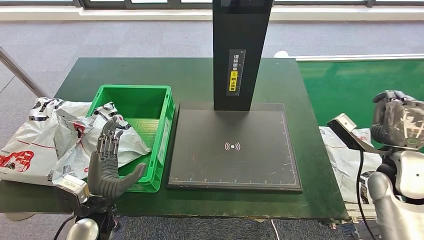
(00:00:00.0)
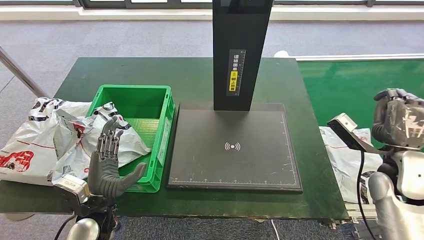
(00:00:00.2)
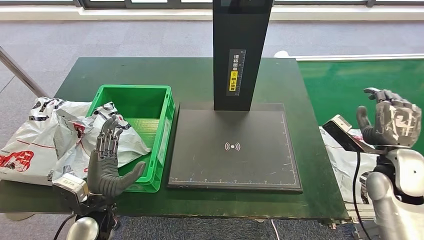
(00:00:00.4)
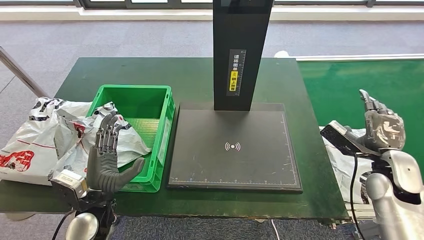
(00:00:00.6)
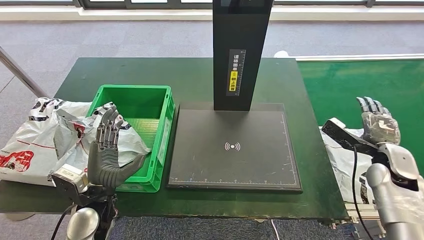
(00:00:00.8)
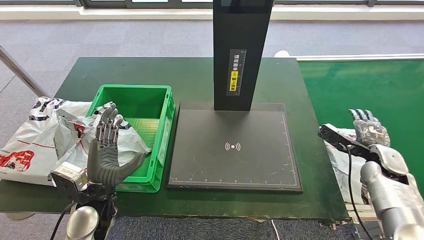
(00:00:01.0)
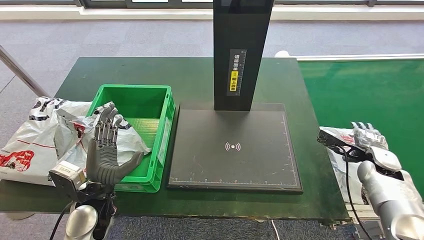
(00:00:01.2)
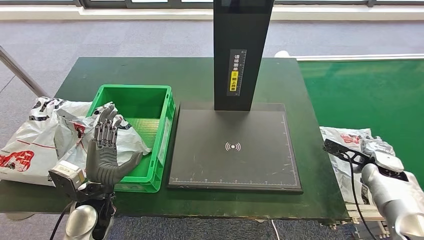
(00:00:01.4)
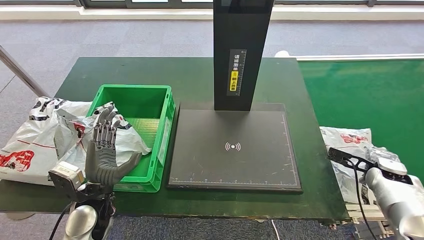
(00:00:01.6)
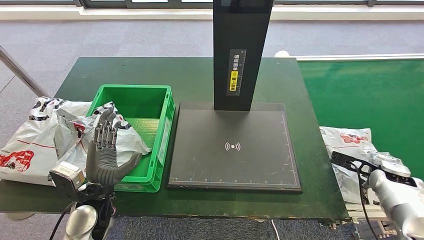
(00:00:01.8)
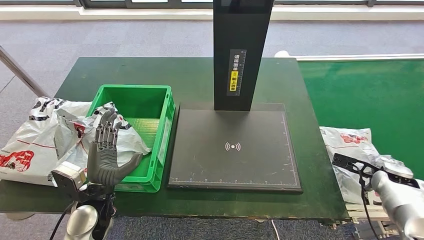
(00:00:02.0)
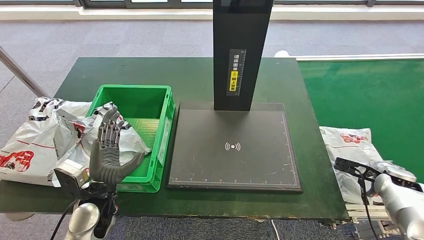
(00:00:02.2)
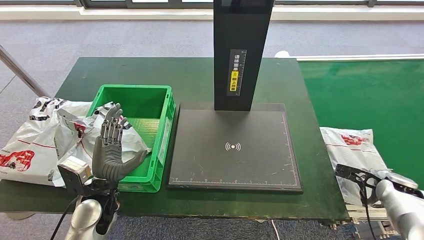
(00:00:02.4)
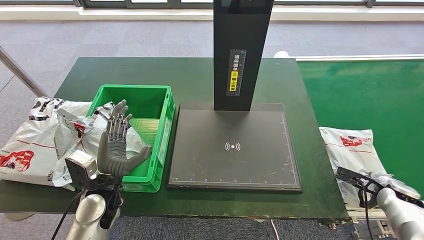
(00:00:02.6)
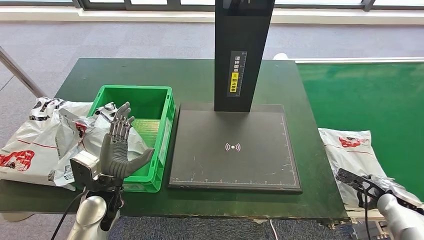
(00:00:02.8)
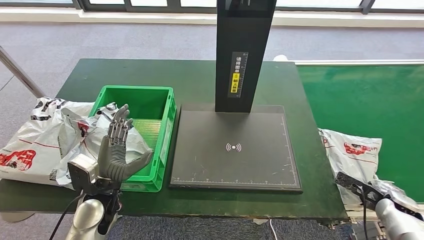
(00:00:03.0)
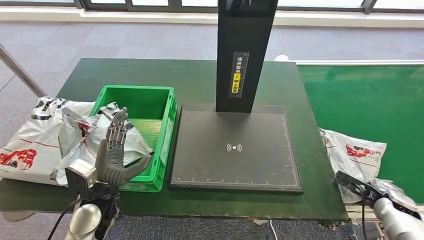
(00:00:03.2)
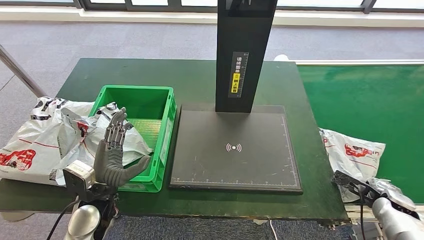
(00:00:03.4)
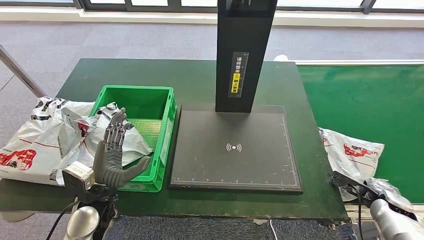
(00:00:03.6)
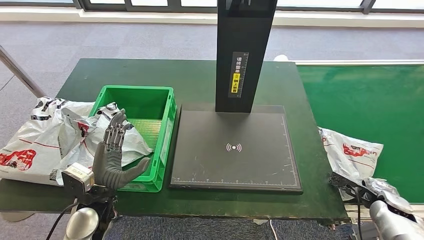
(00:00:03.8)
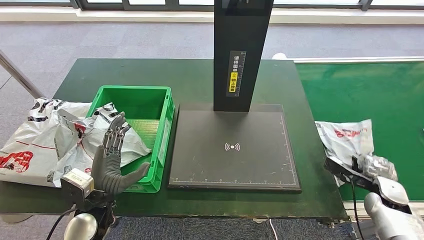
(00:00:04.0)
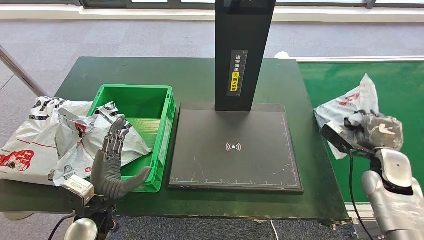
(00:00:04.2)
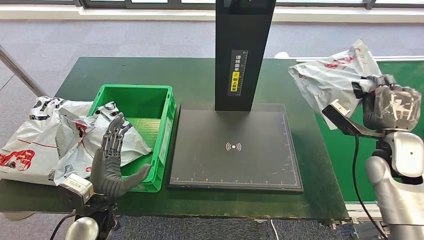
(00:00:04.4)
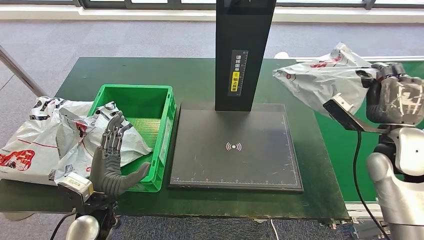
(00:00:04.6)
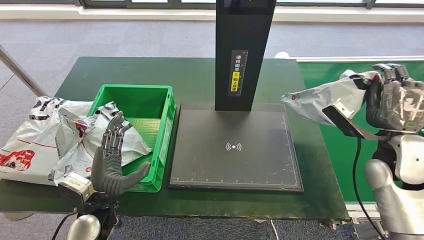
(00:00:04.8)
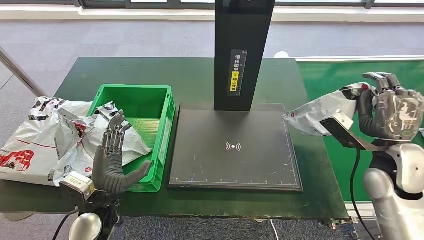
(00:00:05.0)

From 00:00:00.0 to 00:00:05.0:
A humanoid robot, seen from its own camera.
Step, from 00:00:02.0 to 00:00:04.8: Pick up the parcel from the conveyor belt.
From 00:00:00.0 to 00:00:01.6: The right hand goes some 10 cm downward and to the right.
